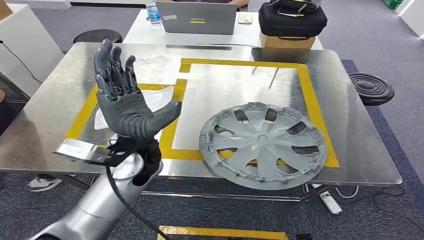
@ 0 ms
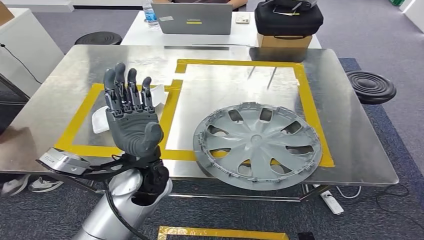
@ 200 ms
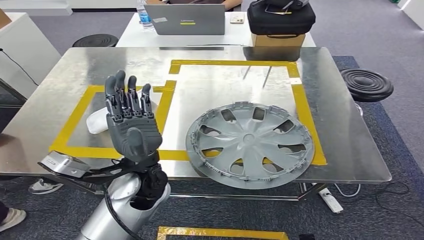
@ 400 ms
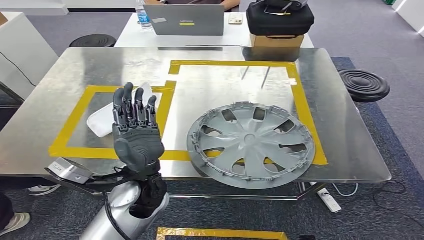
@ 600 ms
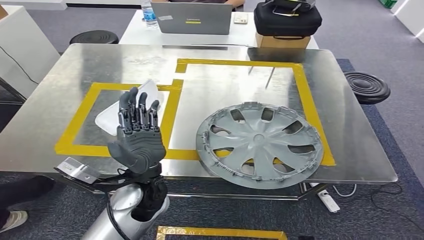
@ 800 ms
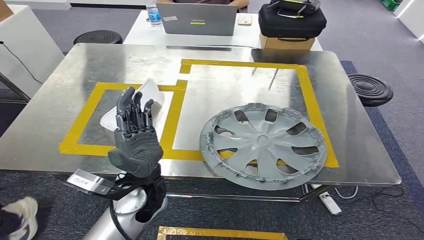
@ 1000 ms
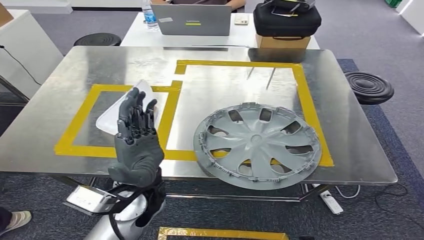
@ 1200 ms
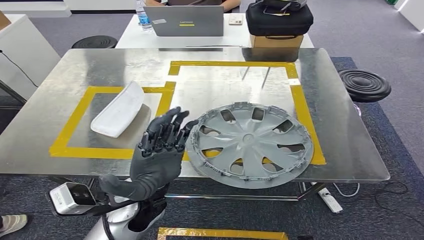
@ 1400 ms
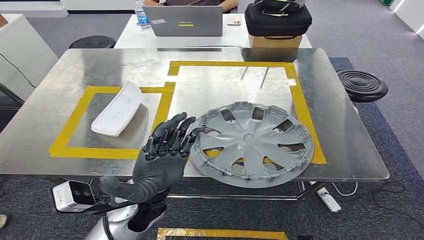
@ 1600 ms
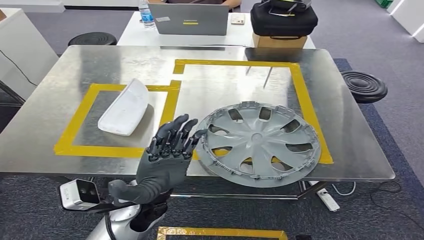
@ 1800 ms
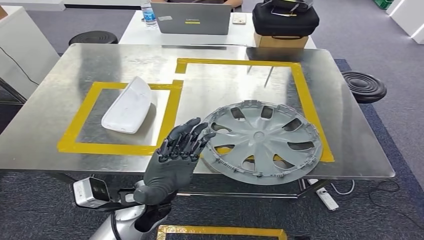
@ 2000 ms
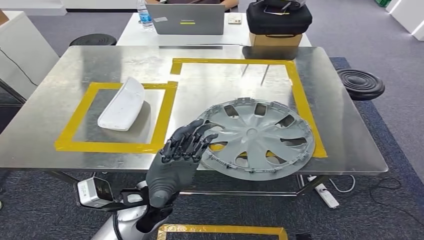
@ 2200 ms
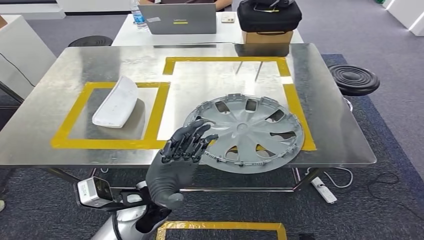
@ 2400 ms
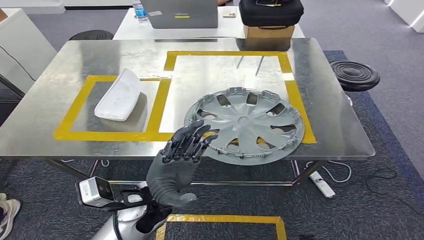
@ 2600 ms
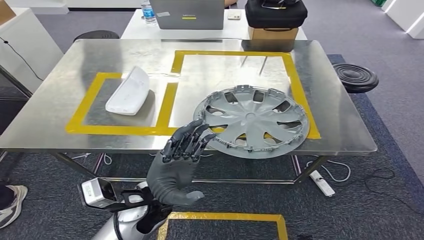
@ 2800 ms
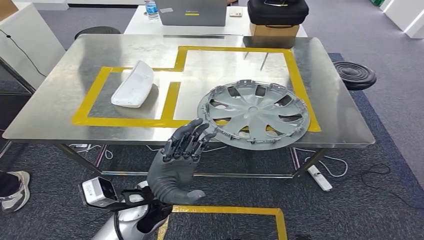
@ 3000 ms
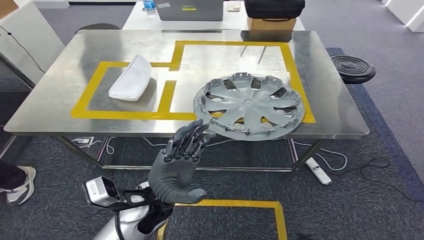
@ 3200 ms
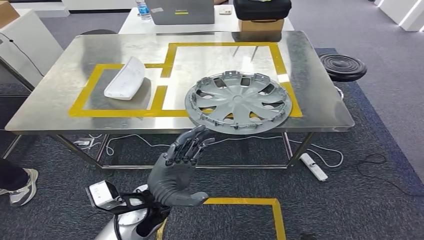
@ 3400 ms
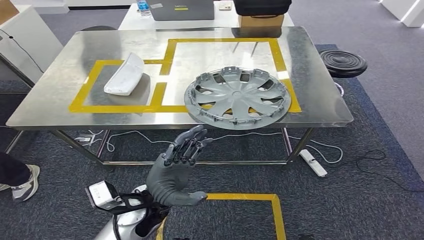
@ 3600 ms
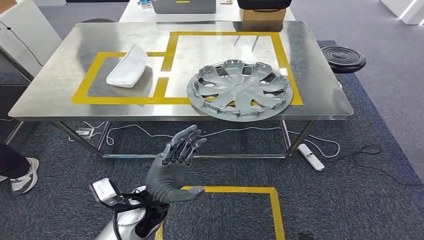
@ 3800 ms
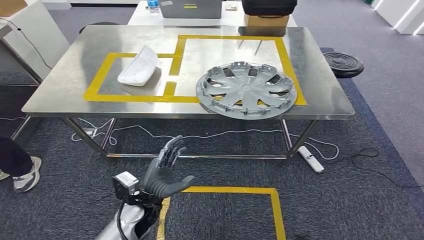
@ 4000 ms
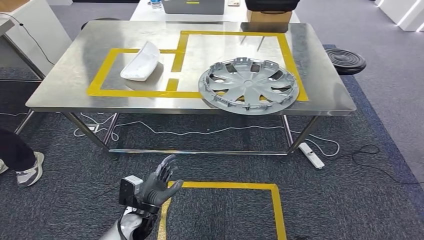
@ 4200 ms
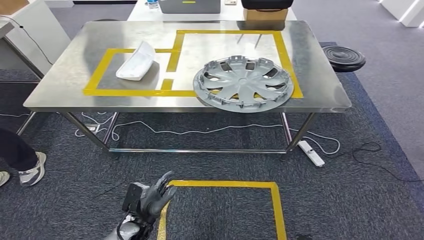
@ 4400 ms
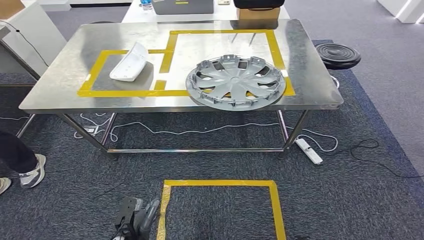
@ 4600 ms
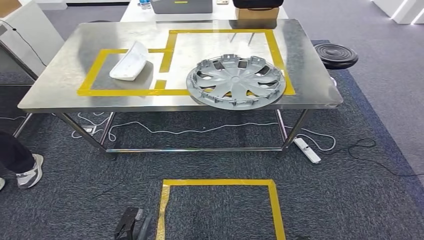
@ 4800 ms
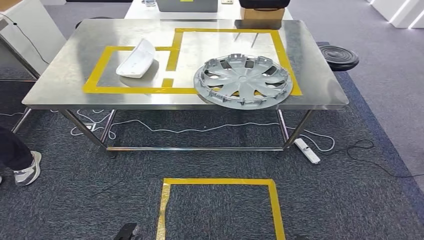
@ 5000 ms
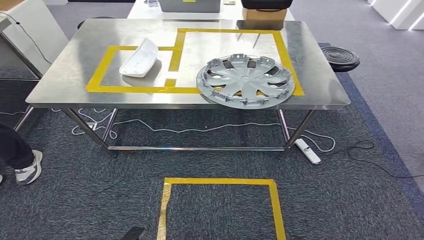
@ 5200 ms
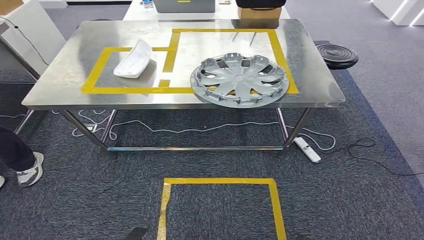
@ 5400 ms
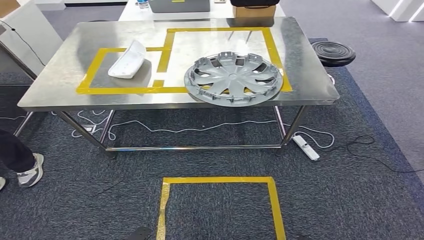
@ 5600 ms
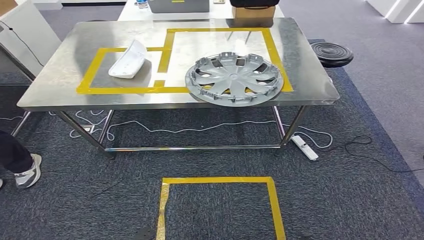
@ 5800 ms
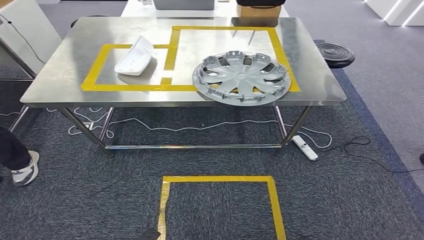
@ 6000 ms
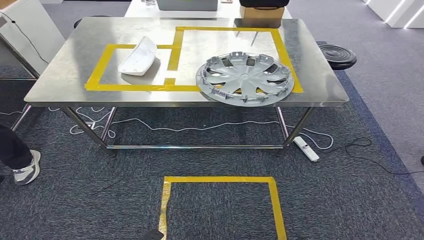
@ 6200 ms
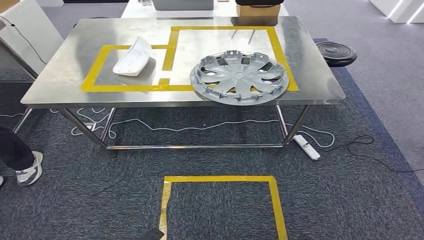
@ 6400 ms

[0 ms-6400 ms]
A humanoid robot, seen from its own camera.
Step, 0 ms to 6200 ms: Move to the initial position at the workbench.
